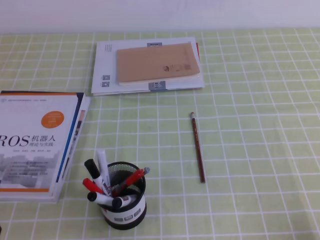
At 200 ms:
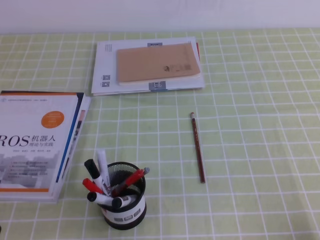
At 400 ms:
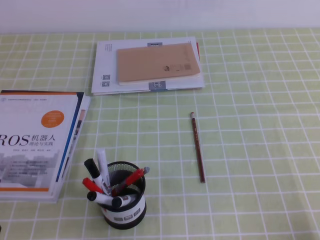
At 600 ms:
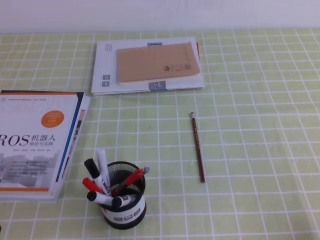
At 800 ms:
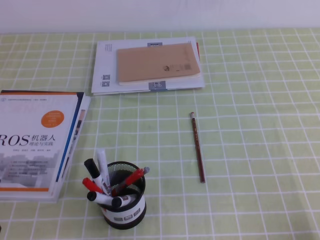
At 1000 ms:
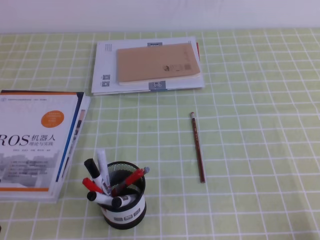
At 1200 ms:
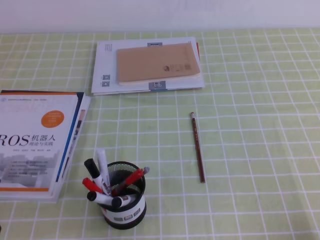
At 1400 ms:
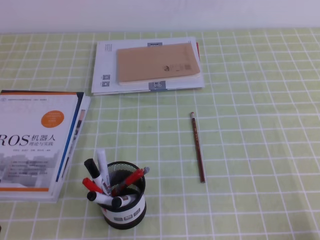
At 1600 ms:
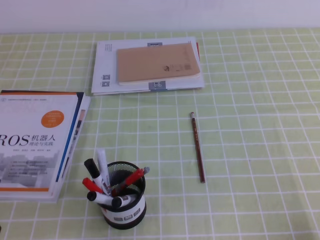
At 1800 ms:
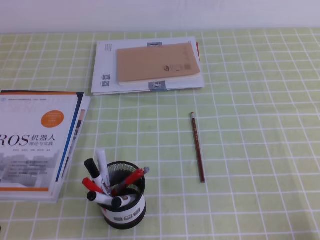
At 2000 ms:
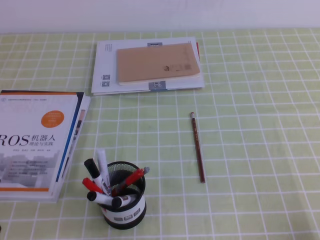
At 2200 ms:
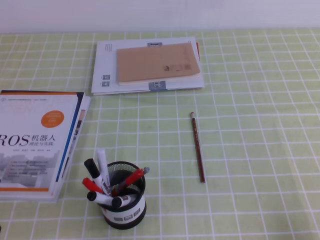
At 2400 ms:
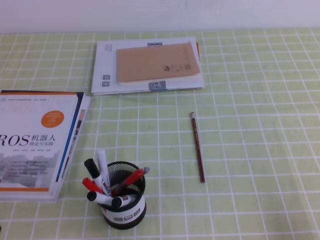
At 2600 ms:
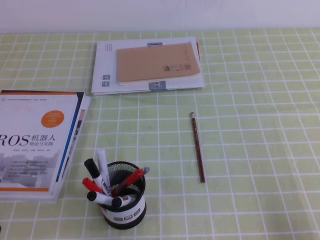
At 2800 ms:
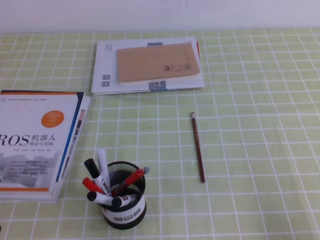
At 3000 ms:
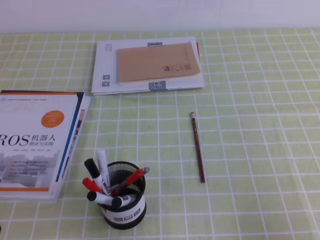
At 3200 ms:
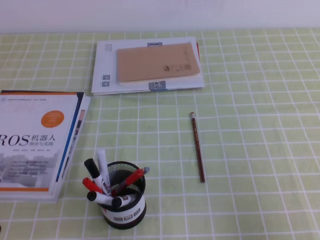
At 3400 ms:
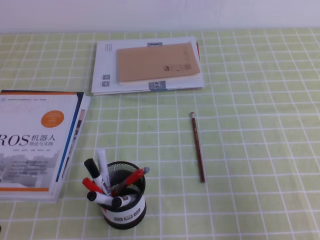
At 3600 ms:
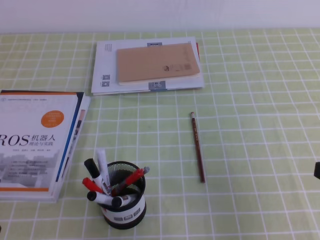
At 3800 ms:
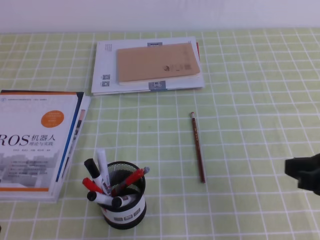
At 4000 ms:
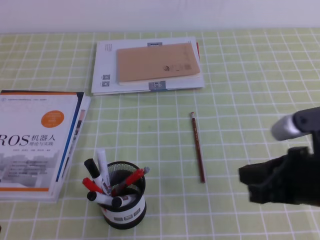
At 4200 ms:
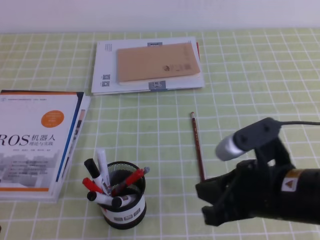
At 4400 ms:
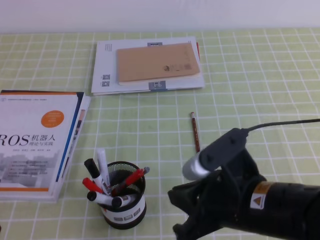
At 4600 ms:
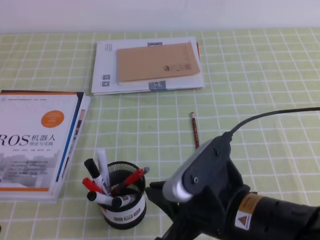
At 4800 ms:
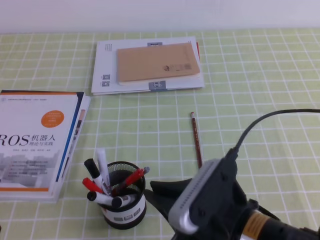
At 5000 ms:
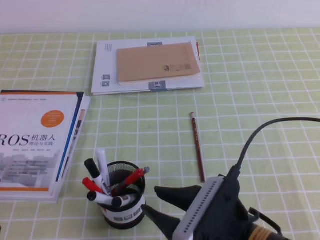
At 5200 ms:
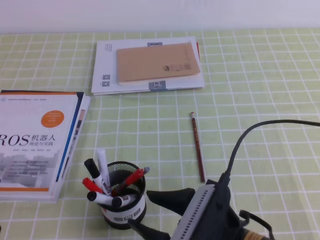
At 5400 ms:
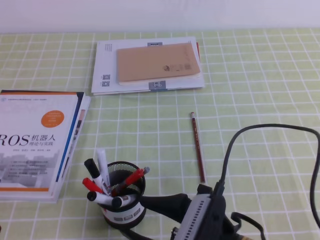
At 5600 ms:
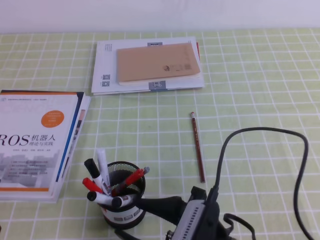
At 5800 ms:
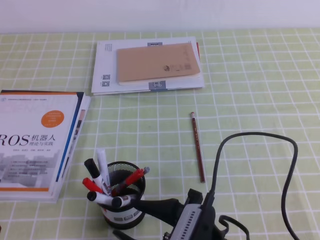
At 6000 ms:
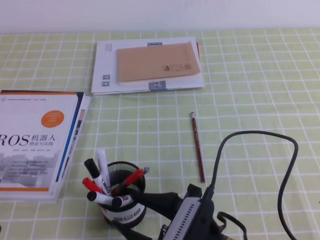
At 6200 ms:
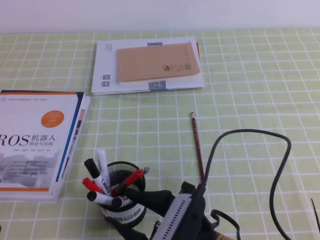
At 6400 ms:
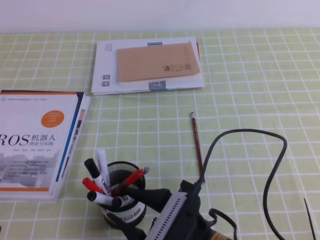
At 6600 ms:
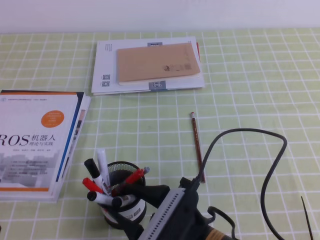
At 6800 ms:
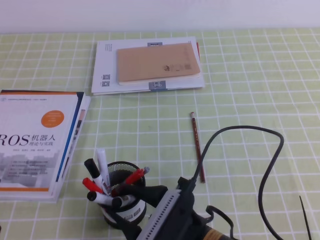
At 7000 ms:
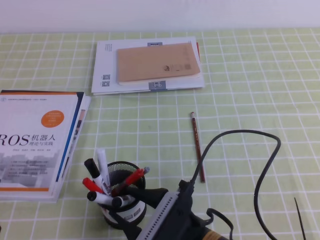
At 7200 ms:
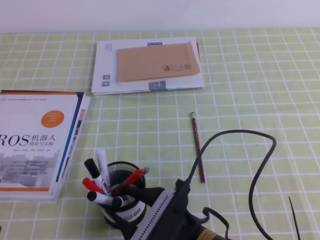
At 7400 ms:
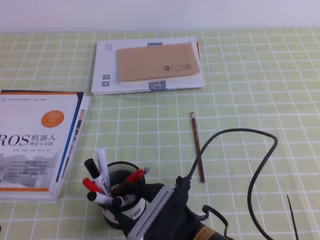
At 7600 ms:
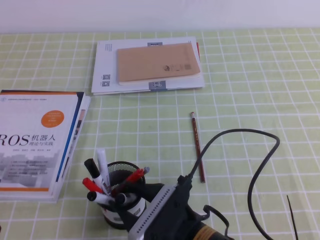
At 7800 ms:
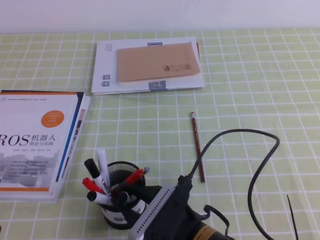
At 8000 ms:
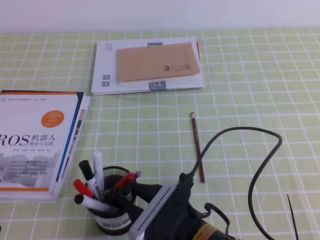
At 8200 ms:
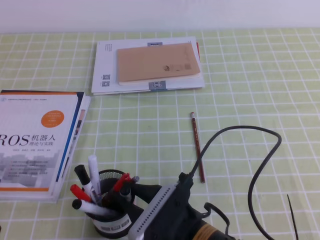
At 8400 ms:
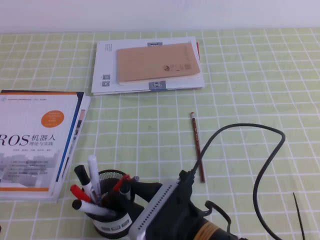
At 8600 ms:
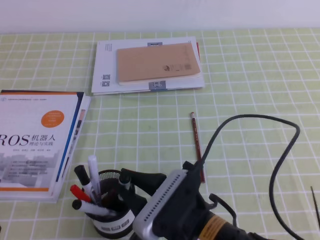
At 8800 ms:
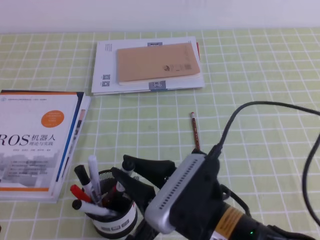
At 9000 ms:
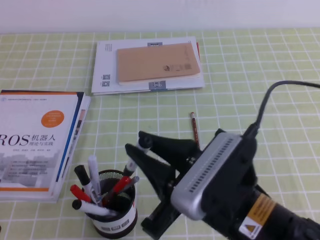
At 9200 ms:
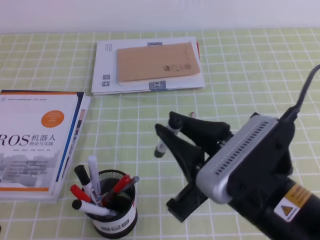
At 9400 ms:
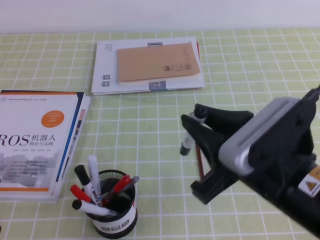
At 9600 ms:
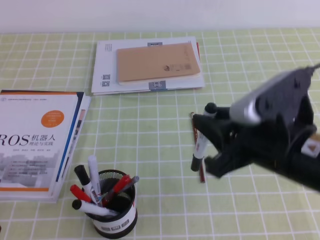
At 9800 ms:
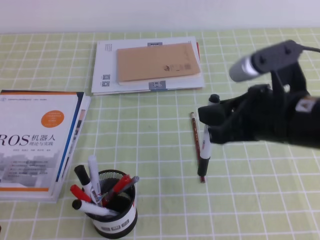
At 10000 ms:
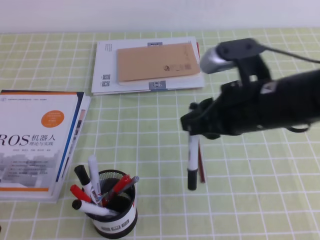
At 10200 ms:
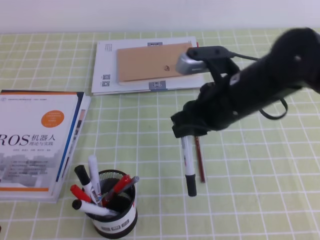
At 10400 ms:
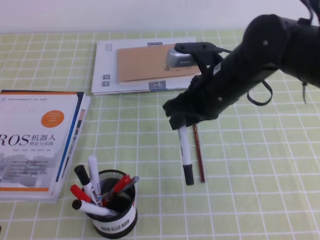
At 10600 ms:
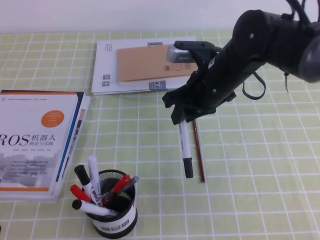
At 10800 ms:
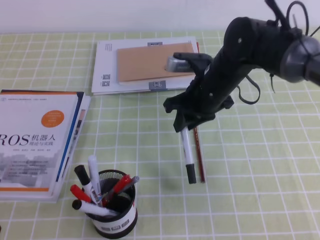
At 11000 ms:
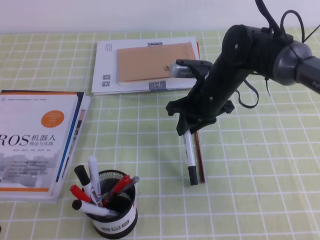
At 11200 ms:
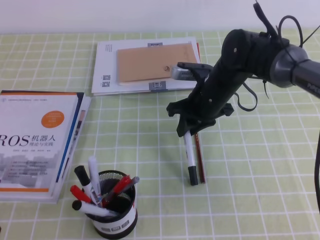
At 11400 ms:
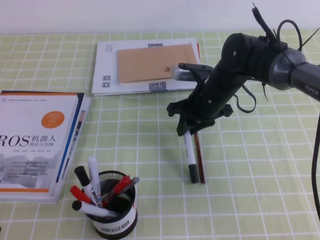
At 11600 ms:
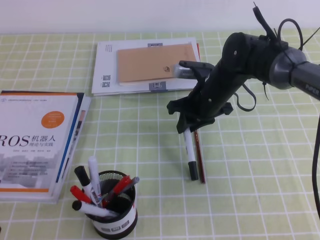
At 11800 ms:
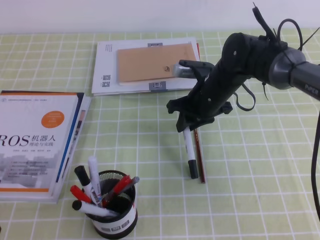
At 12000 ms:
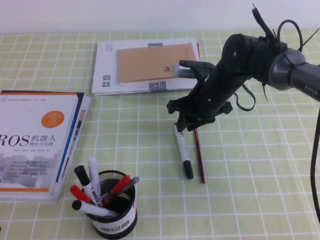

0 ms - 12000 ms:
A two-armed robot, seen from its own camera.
0 ms - 1600 ms: Both grippers stay put.
1600 ms - 3000 ms: The right gripper heads upward, covering about 5 cm.
3000 ms - 4400 ms: The right gripper is displaced to the left and forward by roughly 20 cm.
4400 ms - 6000 ms: The right gripper shifts roughly 10 cm downward and to the left, and opens its fingers.
6000 ms - 7600 ms: The grippers stay close to where they were, moving slightly.
7600 ms - 9000 ms: The right gripper shifts approximately 10 cm upward, and closes.
9000 ms - 10400 ms: The right gripper goes approximately 20 cm forward.
10400 ms - 12000 ms: The right gripper heads forward and downward, covering about 15 cm.

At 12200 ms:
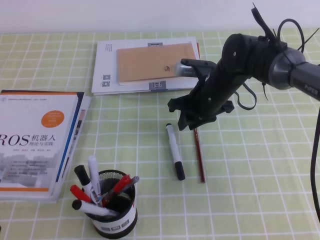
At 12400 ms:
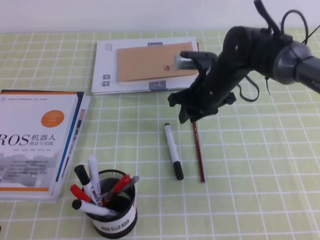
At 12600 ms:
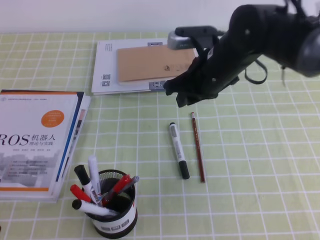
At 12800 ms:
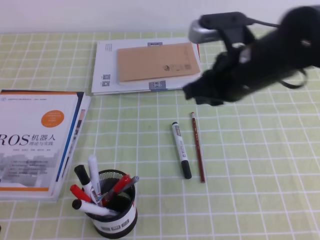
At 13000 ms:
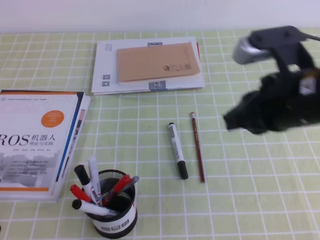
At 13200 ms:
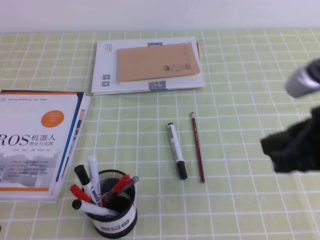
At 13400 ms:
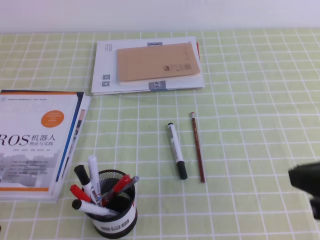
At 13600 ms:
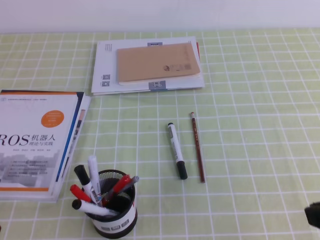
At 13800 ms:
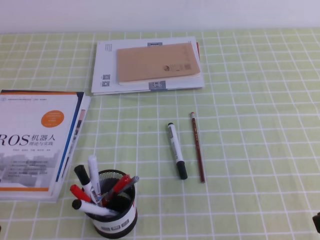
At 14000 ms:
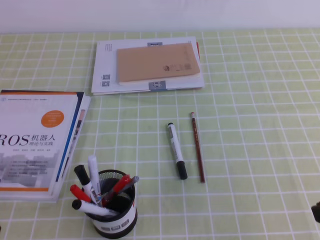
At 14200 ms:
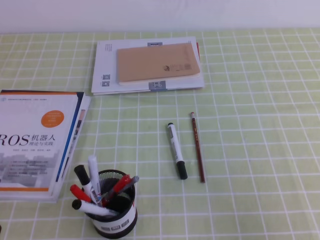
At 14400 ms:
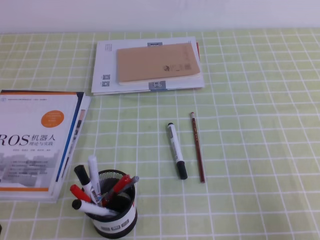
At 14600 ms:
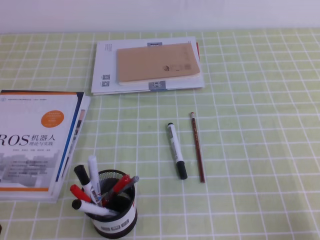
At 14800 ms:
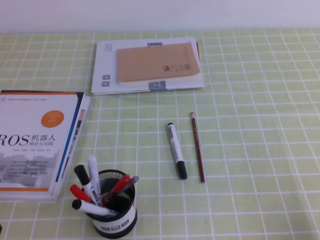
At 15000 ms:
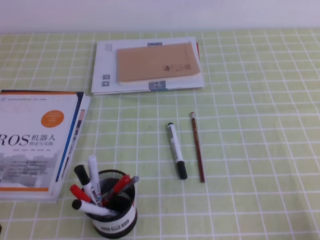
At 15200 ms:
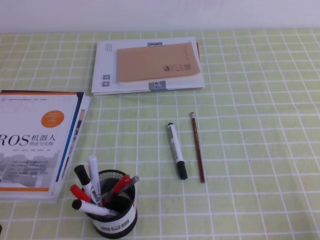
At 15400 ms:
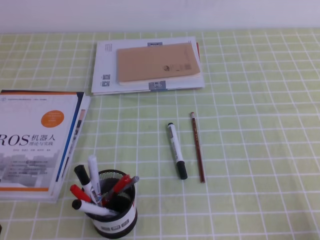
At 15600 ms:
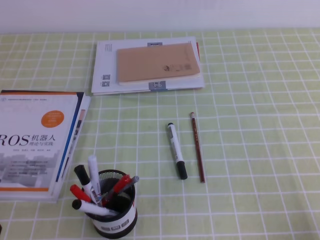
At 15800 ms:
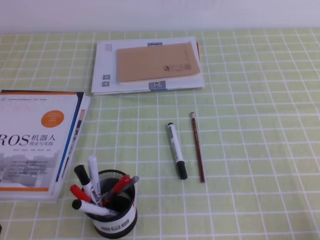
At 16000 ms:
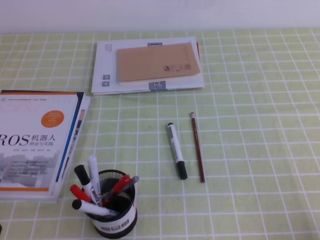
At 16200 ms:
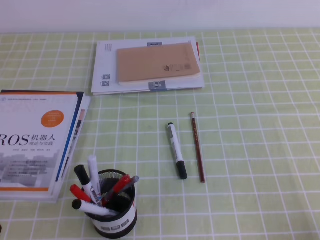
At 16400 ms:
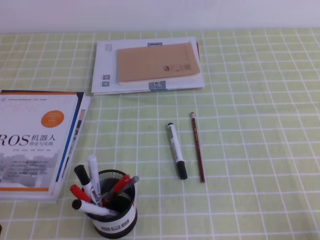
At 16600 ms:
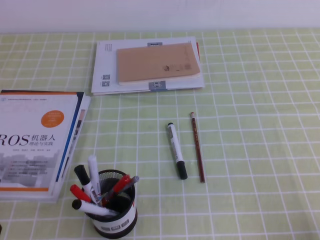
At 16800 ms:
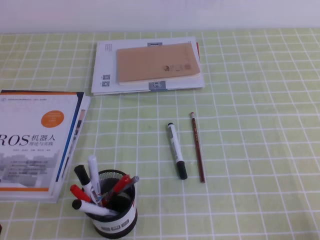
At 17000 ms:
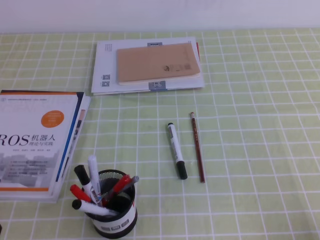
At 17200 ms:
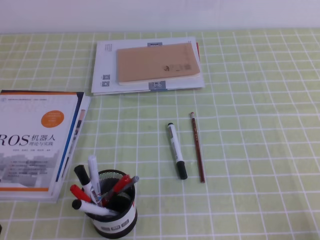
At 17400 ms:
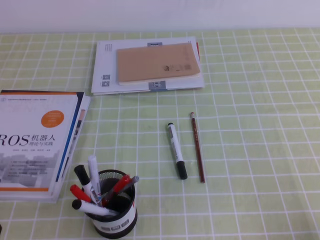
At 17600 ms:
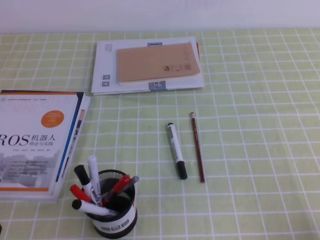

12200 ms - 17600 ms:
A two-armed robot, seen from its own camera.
Step, 12200 ms - 17600 ms: Pick up the pen from the pen holder.
12200 ms - 13600 ms: The right gripper heads backward and to the right, covering approximately 35 cm, and closes its fingers.
13600 ms - 15000 ms: The right gripper goes some 15 cm downward, to the right and backward.
16200 ms - 17600 ms: Neither gripper changes place.
